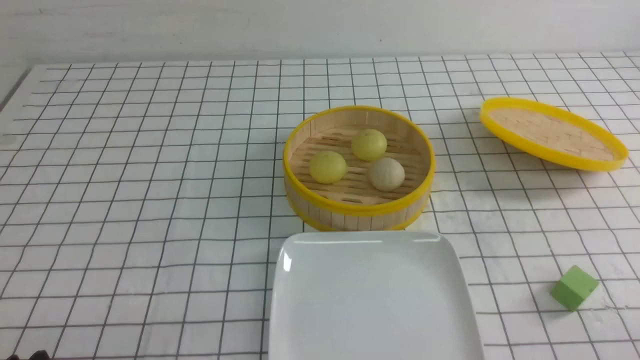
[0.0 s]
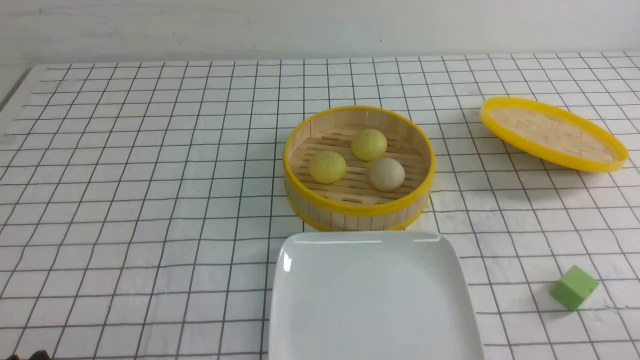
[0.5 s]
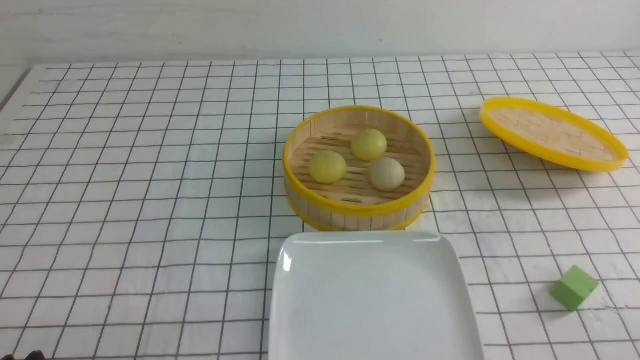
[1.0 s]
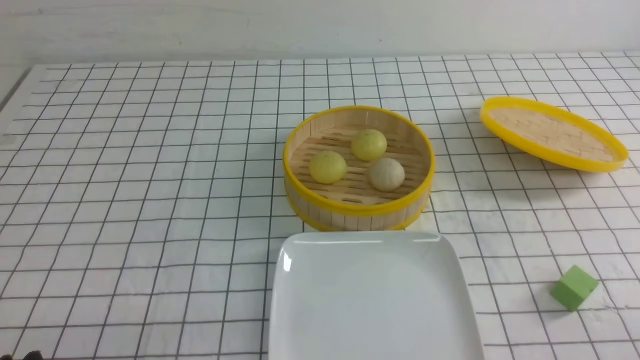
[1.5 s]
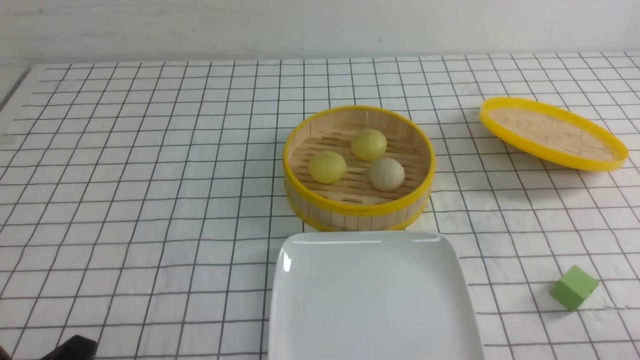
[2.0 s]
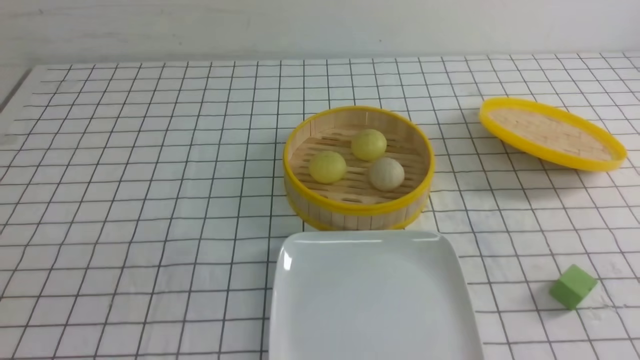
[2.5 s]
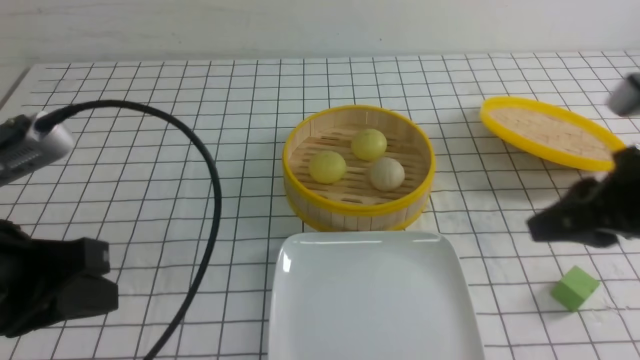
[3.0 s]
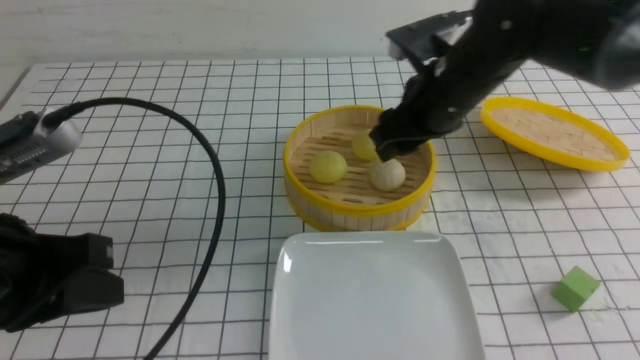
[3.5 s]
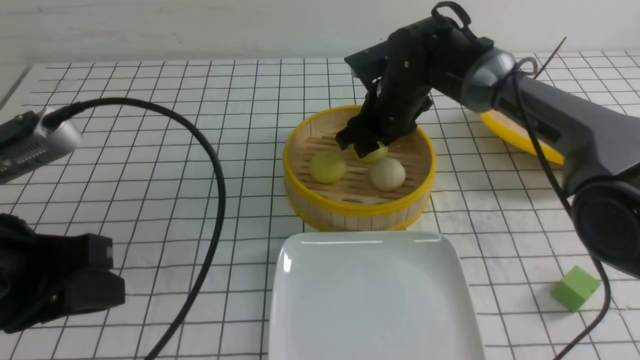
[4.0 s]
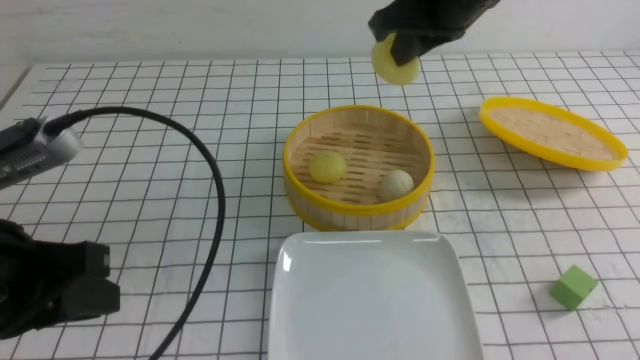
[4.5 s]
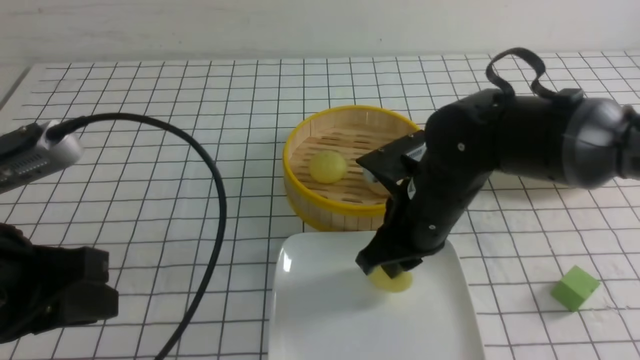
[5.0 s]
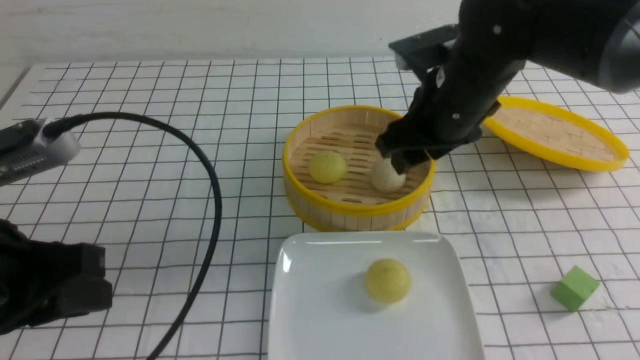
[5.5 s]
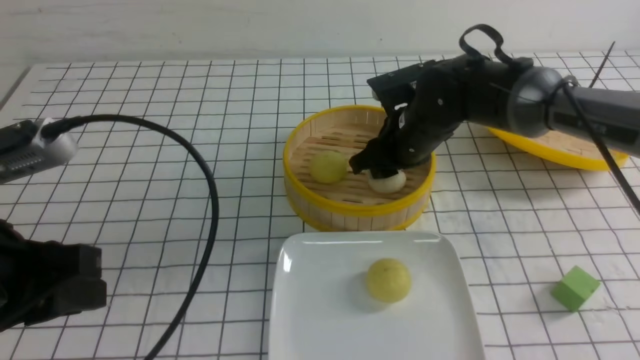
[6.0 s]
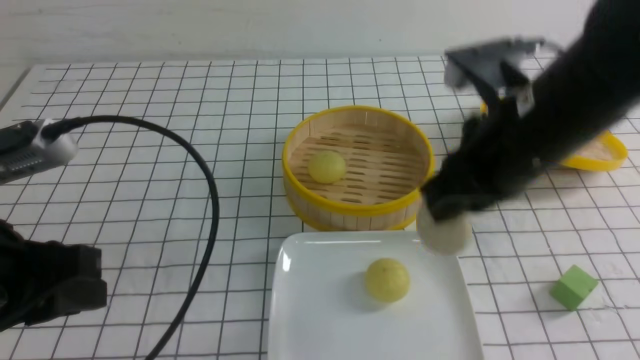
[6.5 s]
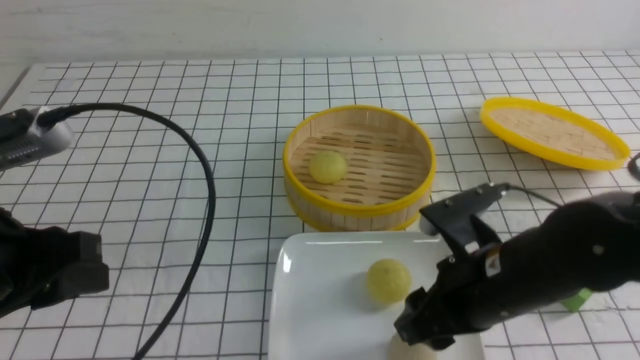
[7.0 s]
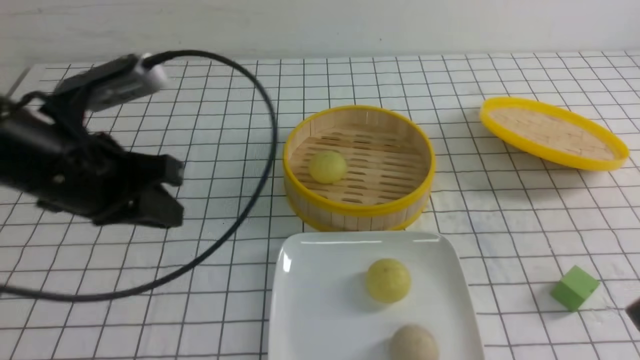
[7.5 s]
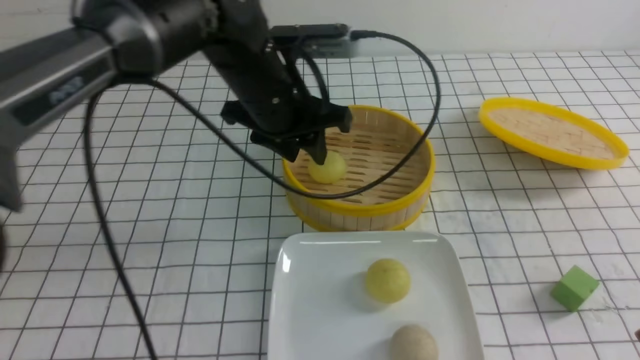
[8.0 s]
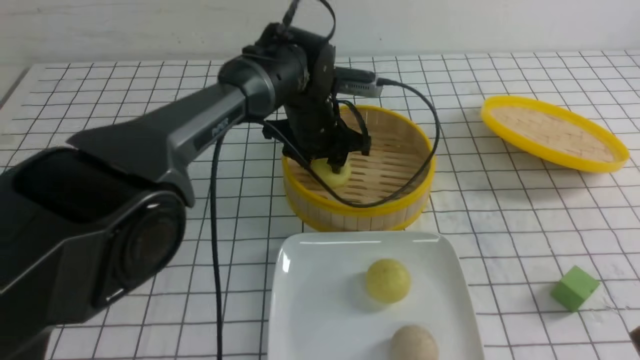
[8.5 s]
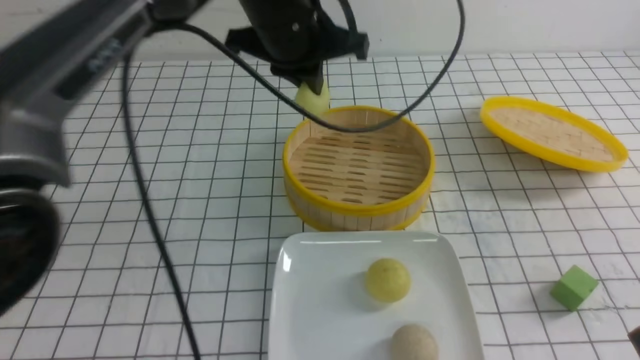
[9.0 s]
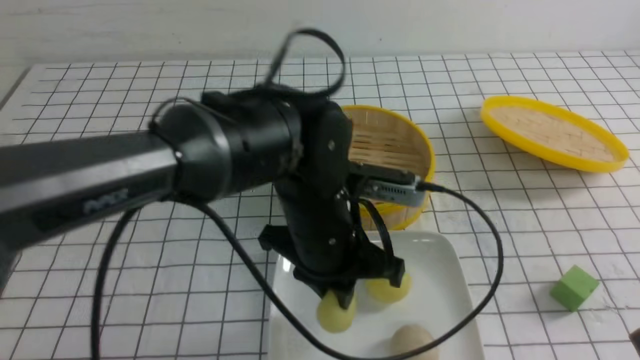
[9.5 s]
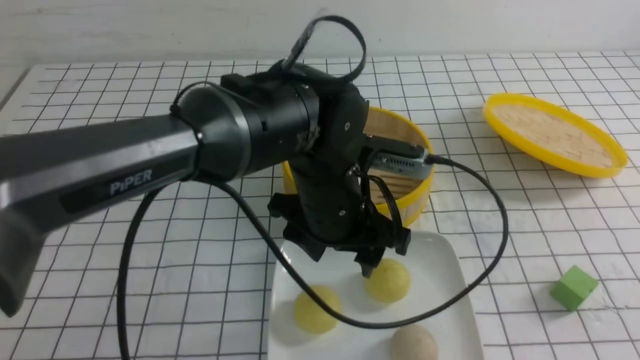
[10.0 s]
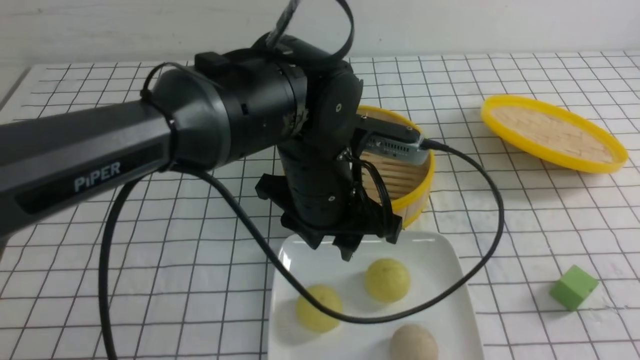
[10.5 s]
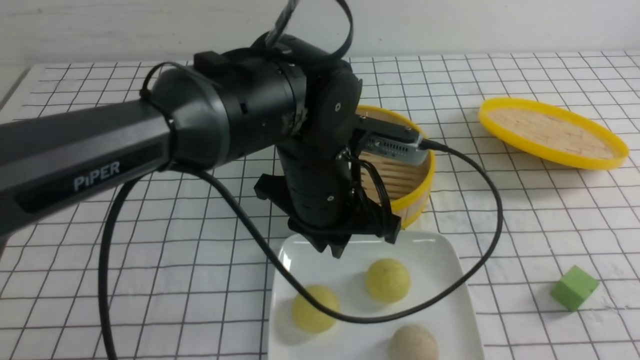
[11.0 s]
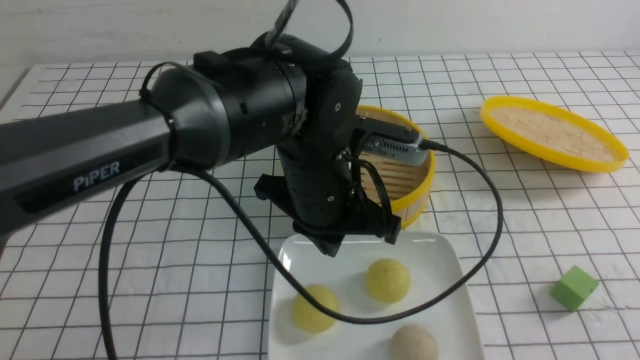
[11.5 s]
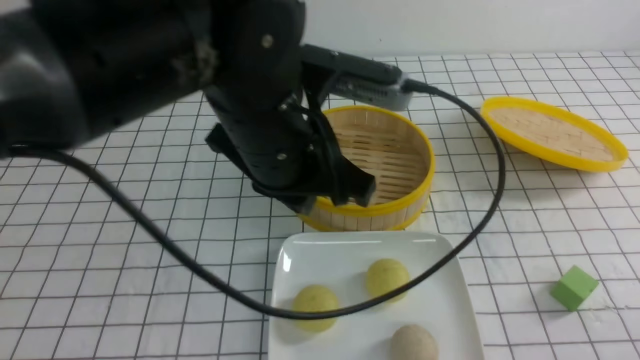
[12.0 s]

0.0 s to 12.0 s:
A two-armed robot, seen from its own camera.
Step, 0.0 to 4.0 s: use the right arm to grab the steamed stuffed bun that is closest to it.
Step, 4.5 to 5.0 s: use the right arm to put the steamed stuffed bun into the plate.
Step, 5.5 to 6.0 s: use the right arm to grab the steamed stuffed bun that is closest to it.
Step, 6.5 to 7.0 s: use the right arm to put the steamed stuffed bun into the plate.
Step, 7.5 to 8.5 s: use the left arm to grab the steamed stuffed bun that is closest to it.
Step, 9.0 to 9.5 s: use the left arm to put the steamed stuffed bun into the plate.
2.0 to 4.0 s: The right gripper moves forward and to the left, approximately 50 cm, and closes and opens again; the left gripper goes roughly 15 cm upward and forward.
4.0 to 6.0 s: The right gripper moves some 15 cm backward and comes back, and closes and opens again.
6.0 to 8.0 s: The left gripper moves forward and to the right, some 30 cm; the right gripper travels backward and to the right by approximately 35 cm, and closes.
8.0 to 10.0 s: The right gripper shifts about 10 cm backward; the left gripper heads backward, to the right and downward, covering roughly 15 cm, and closes, then reopens.
10.0 to 12.0 s: The right gripper is displaced downward by about 15 cm. The left gripper is displaced upward and to the left by about 10 cm, and closes up.

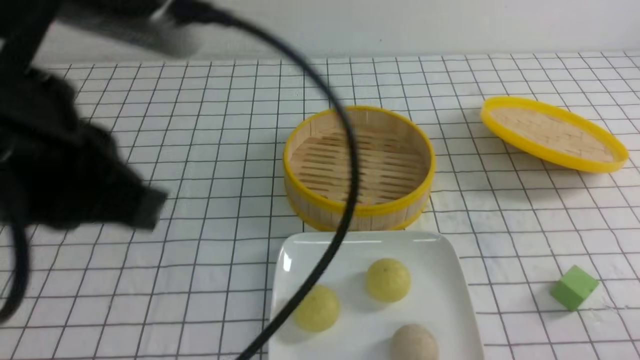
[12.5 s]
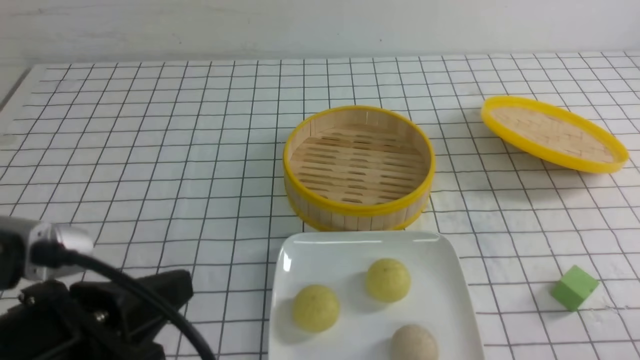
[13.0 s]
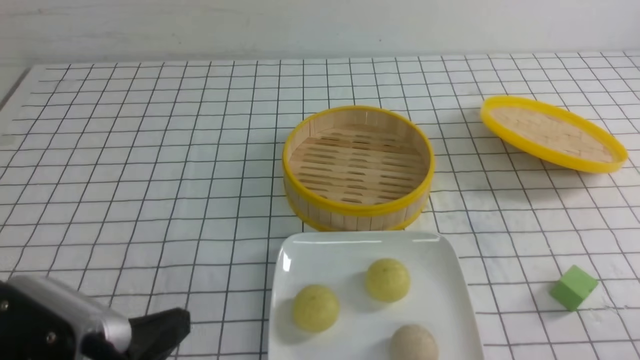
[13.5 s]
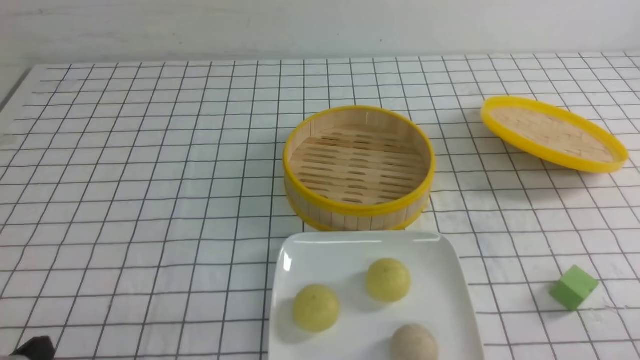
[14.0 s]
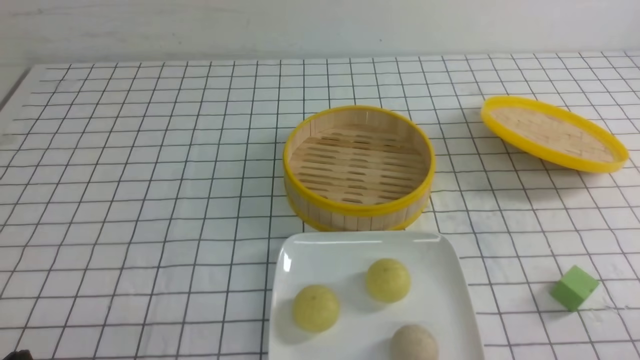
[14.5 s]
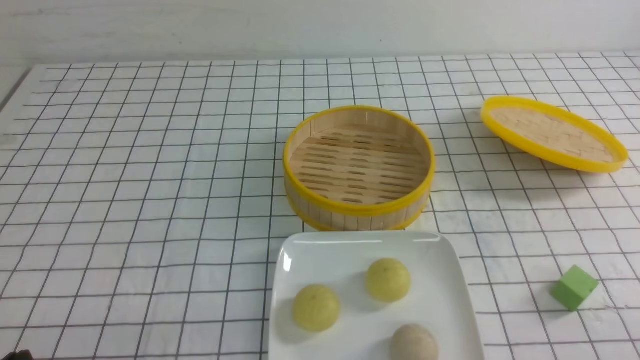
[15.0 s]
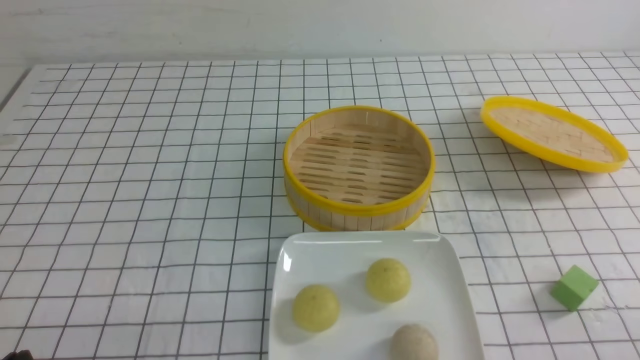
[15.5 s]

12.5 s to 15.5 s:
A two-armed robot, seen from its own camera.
12.5 to 14.0 s: The left gripper is displaced downward and to the left by about 25 cm.
